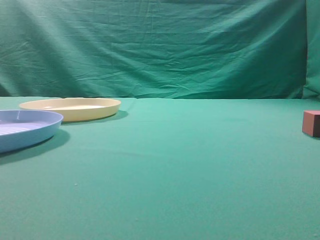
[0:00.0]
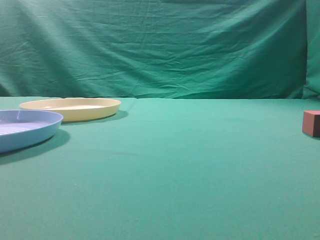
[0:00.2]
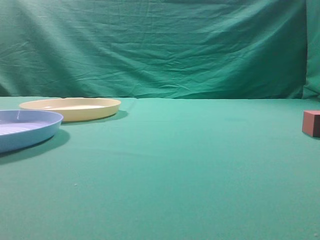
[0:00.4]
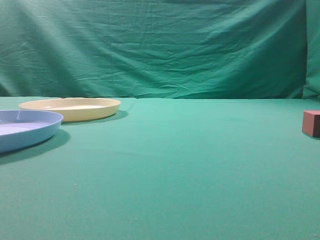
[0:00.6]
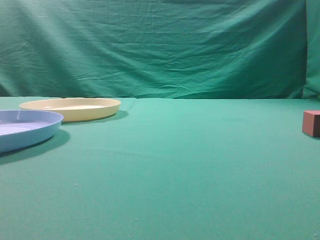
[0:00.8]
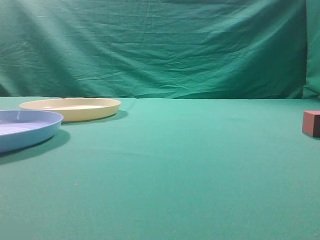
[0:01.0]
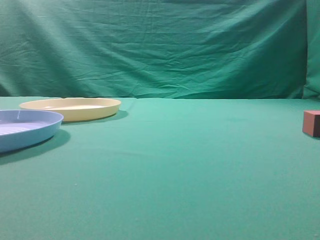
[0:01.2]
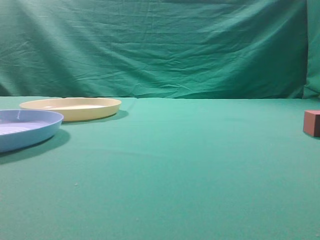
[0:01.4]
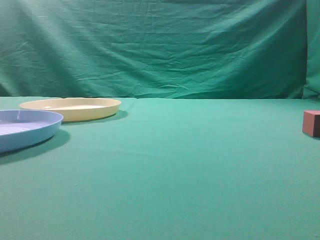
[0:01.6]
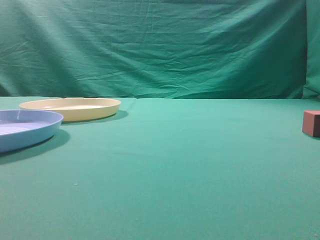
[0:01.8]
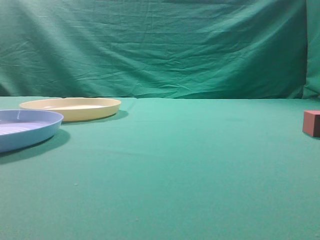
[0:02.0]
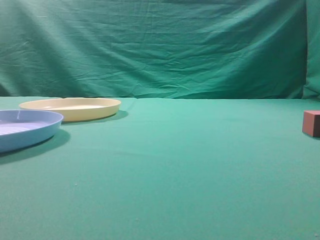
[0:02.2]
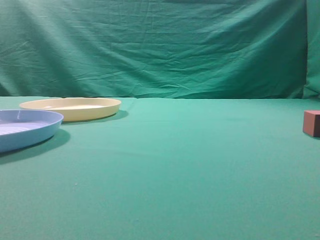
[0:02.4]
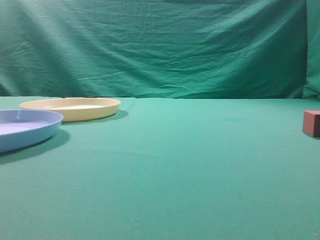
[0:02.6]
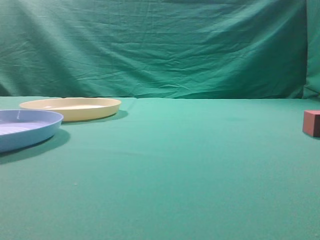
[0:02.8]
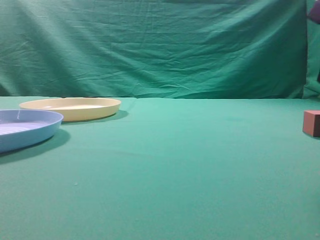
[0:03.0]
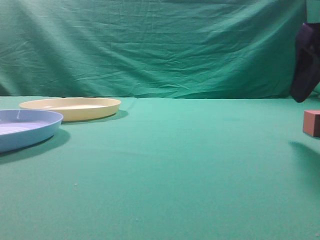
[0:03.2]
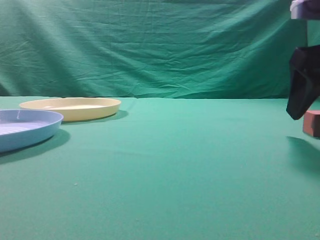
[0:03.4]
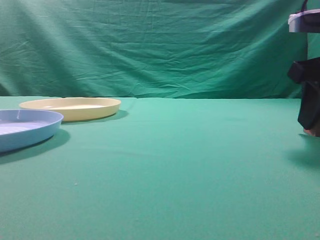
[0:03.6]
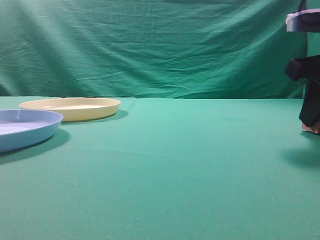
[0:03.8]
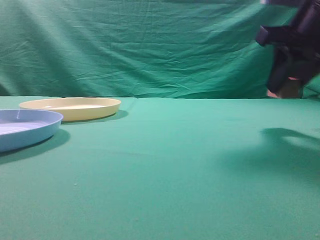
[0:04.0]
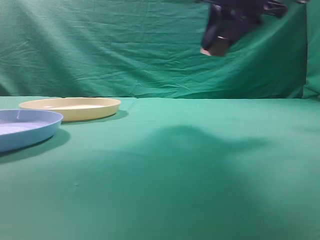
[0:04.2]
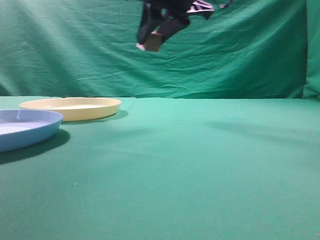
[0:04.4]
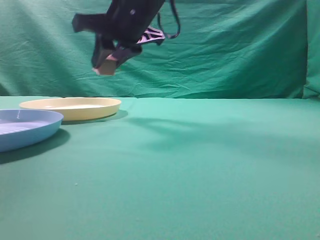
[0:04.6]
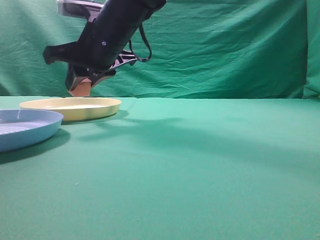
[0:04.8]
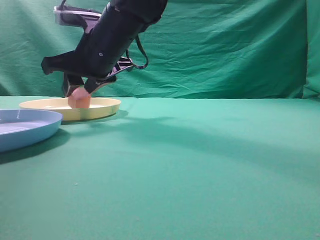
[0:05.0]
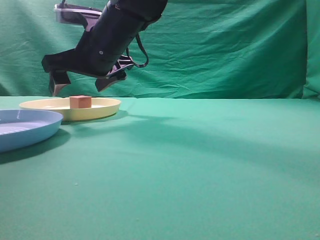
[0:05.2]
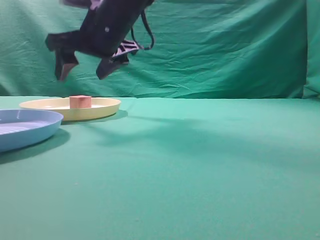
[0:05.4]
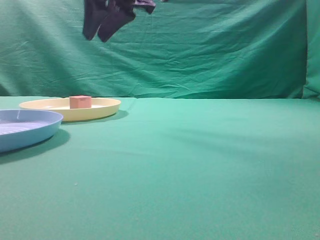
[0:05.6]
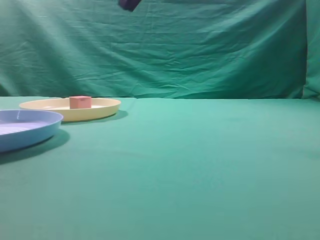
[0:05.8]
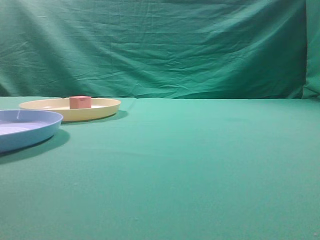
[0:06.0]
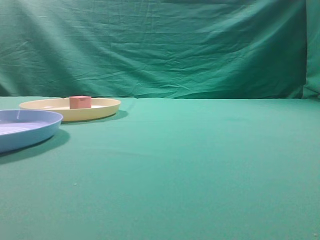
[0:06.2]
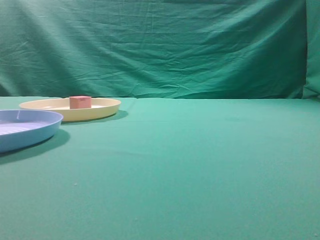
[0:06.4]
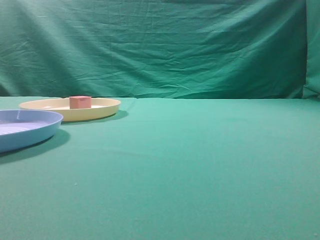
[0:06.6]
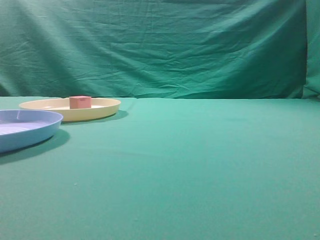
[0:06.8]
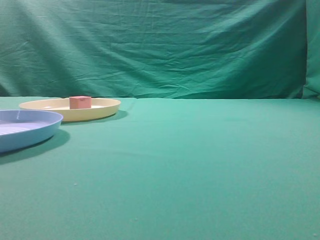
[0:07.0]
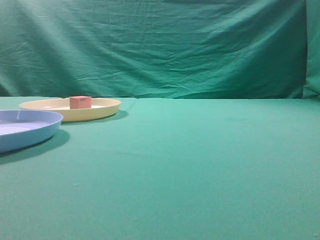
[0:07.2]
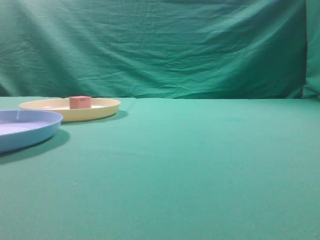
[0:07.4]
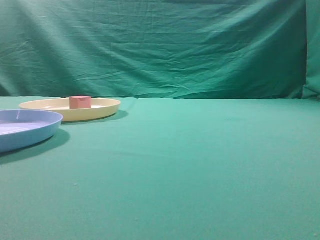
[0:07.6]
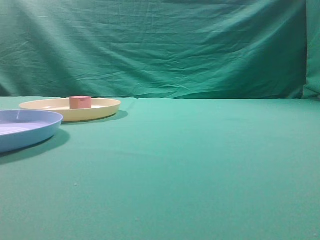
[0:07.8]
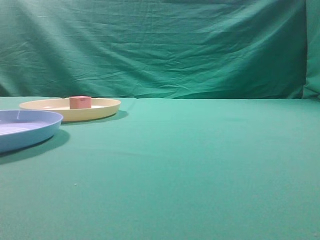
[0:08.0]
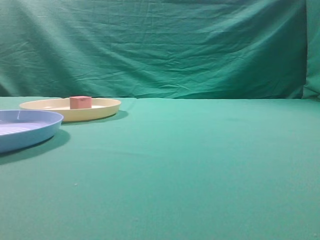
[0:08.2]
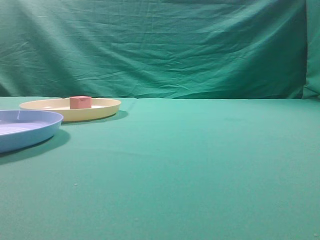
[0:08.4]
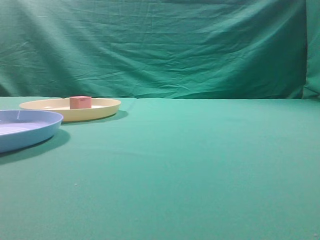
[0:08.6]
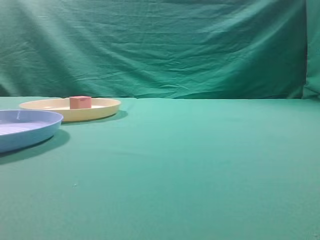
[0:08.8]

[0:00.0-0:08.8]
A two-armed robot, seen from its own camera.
Task of the whole recording: pick up the cube block from the table and put it on the plate.
Step, 0:00.0 to 0:03.8: Grasp the small cube on the table.
Step, 0:04.0 to 0:05.4: Place it into the yellow plate.
0:03.0 to 0:04.4: The right gripper moves to the left and forward, approximately 25 cm, and opens, then closes once more.
0:04.4 to 0:05.8: The right gripper shifts about 10 cm upward, and closes up.
